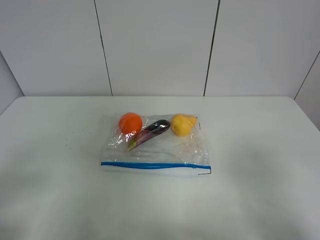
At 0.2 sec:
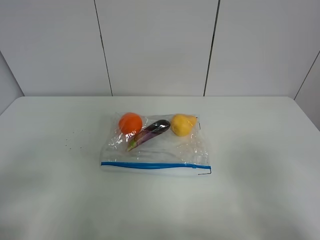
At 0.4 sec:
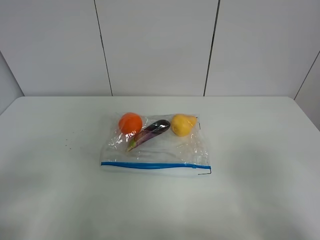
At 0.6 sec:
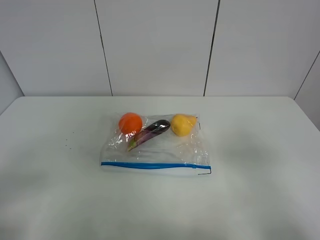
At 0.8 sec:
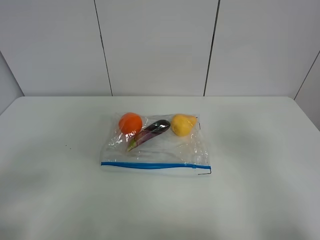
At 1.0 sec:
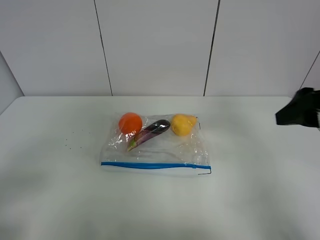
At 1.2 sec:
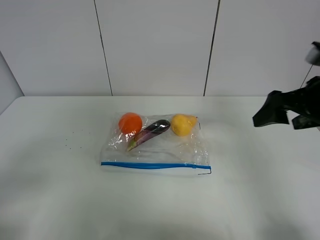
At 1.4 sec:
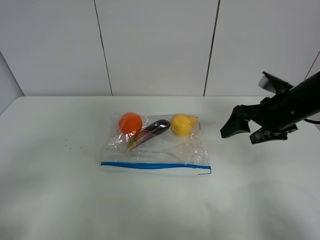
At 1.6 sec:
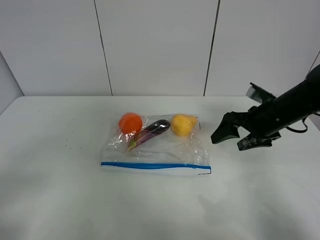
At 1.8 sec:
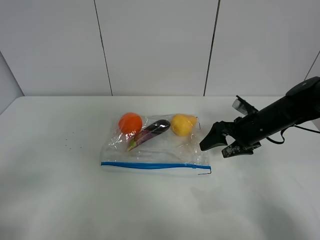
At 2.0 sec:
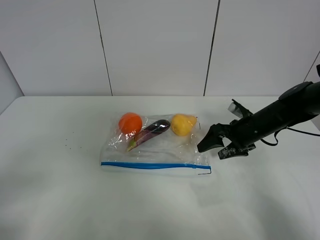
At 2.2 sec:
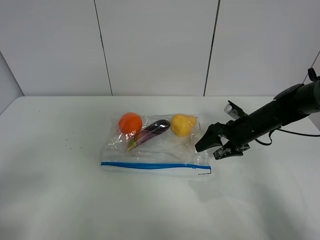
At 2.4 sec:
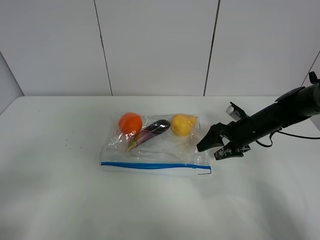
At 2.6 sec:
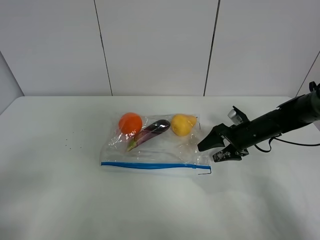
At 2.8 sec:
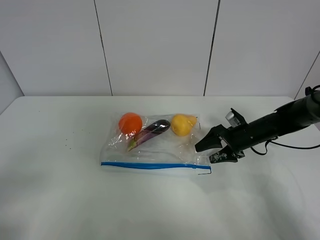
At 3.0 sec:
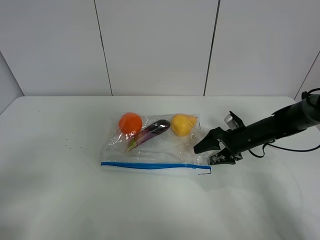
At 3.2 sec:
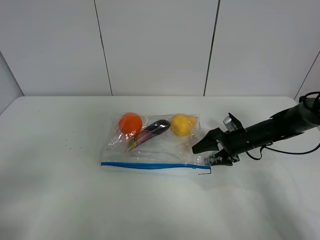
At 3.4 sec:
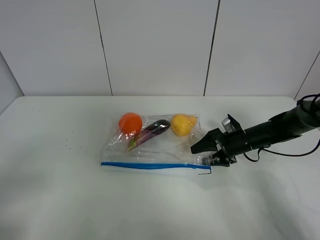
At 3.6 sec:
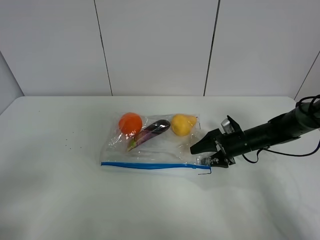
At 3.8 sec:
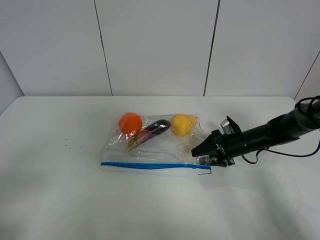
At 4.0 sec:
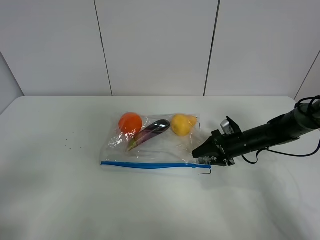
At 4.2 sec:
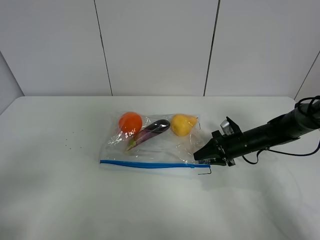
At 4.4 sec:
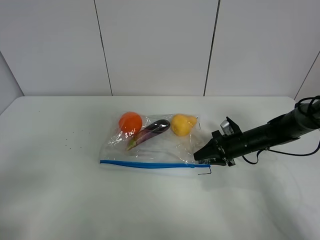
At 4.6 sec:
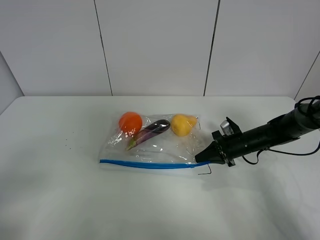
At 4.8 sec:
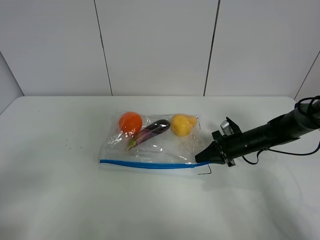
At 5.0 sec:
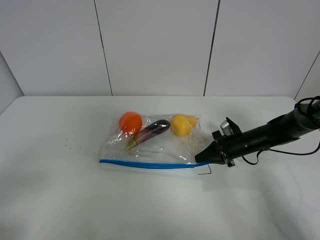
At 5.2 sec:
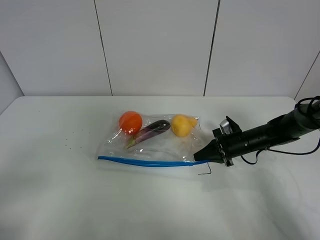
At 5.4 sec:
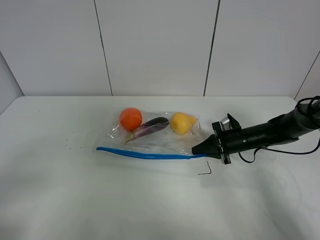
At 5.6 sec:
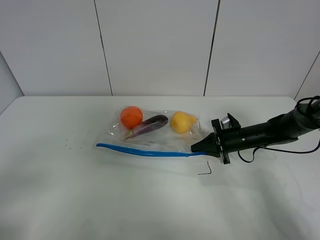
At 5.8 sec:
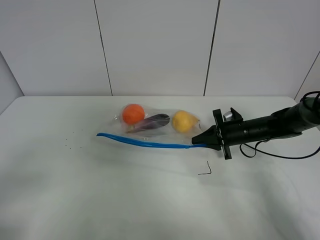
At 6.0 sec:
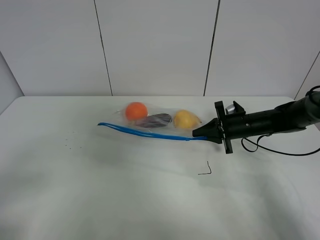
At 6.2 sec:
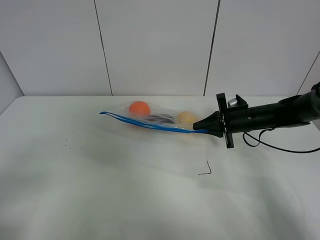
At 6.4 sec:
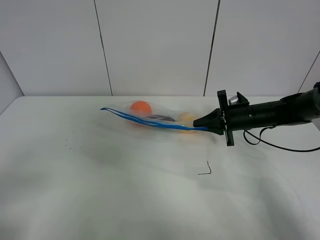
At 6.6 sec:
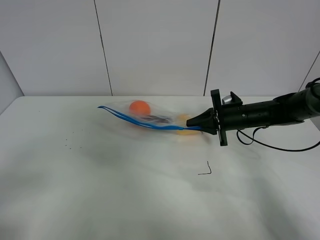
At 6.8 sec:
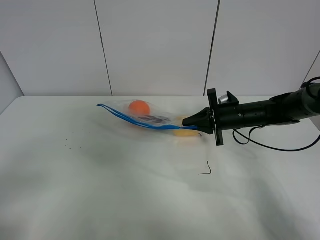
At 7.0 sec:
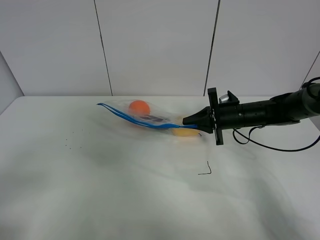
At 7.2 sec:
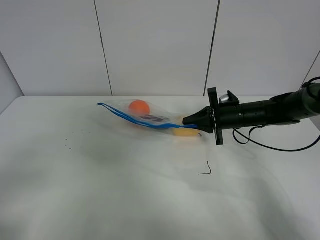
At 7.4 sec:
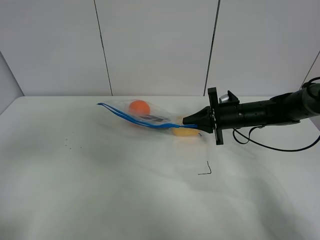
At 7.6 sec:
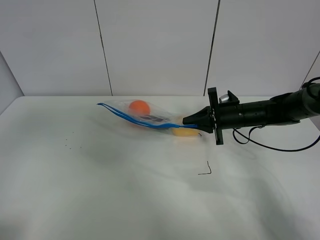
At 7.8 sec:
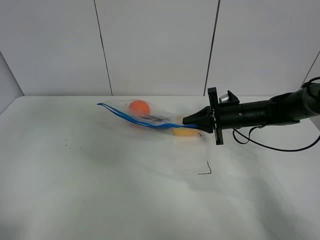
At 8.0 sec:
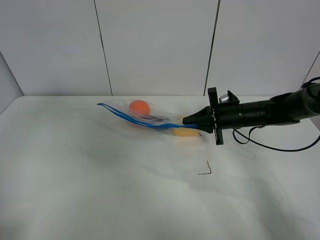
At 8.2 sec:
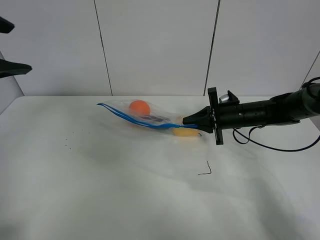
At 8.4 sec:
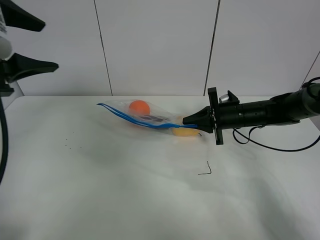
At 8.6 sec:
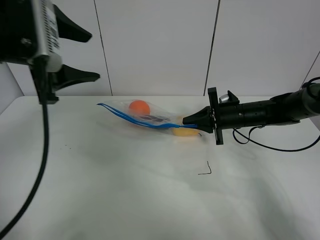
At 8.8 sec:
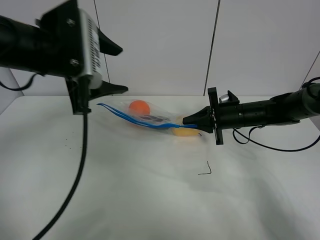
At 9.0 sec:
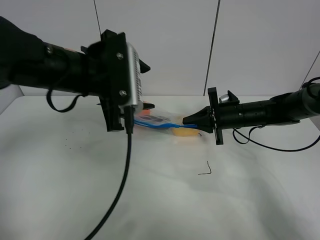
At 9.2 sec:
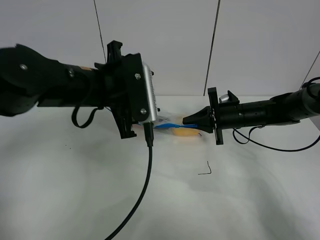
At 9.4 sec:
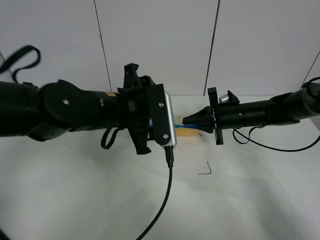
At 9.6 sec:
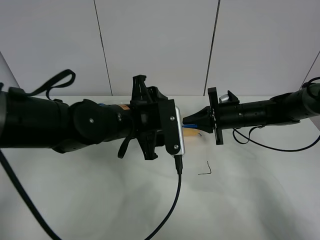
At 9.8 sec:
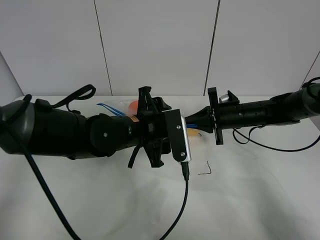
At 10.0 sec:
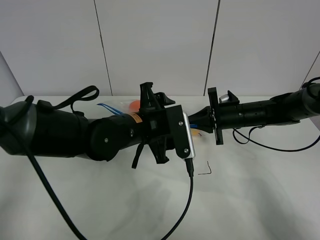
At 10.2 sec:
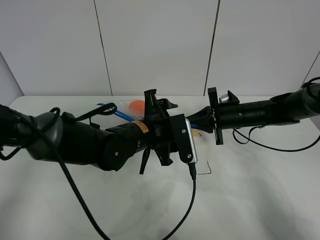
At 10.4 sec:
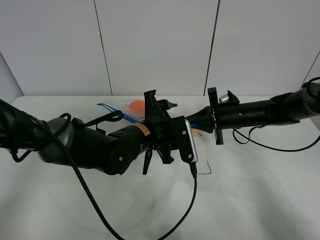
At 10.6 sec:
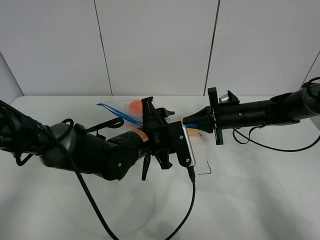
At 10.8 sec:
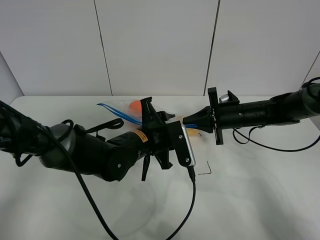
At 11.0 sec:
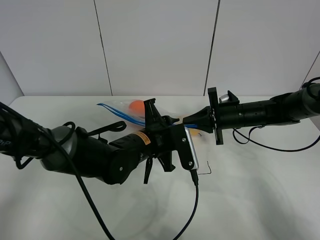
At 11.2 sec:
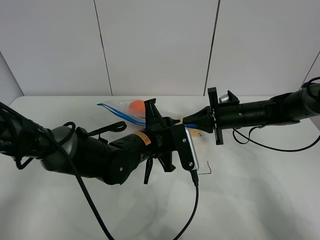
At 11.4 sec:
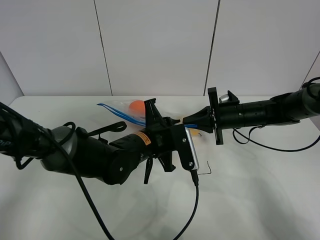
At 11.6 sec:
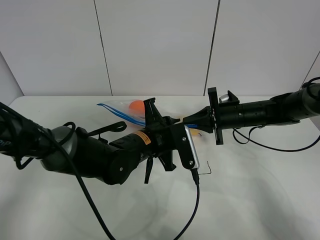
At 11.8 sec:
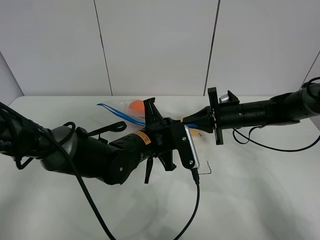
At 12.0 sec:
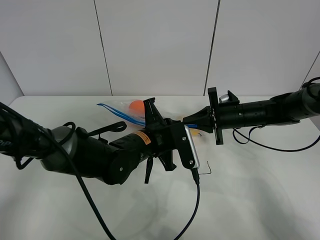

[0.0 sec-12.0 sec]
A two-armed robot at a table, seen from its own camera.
Step, 0.0 sec to 4.6 sec: Grasp the fruit bag with right gripper.
Step, 4.8 sec to 6.8 sec: Lift the fruit bag with your right gripper.
0.0 sec to 1.6 sec: The right gripper is displaced forward by roughly 30 cm.
1.6 sec to 3.0 sec: The right gripper moves downward, approximately 10 cm.
3.0 sec to 4.4 sec: The right gripper closes its fingers.
4.4 sec to 6.0 sec: The right gripper moves upward, roughly 5 cm, and closes.
6.0 sec to 7.6 sec: The left gripper travels upward and forward by roughly 15 cm.
7.6 sec to 9.0 sec: The left gripper moves to the right, forward and downward, about 30 cm.
9.0 sec to 10.4 sec: The left gripper shifts approximately 15 cm downward and to the right.
10.4 sec to 12.0 sec: The left gripper closes up.

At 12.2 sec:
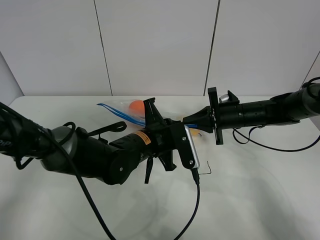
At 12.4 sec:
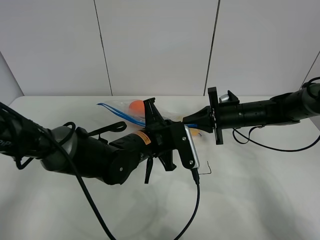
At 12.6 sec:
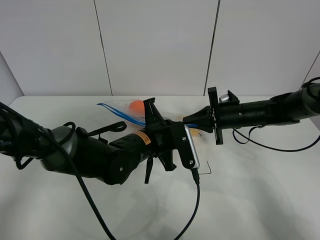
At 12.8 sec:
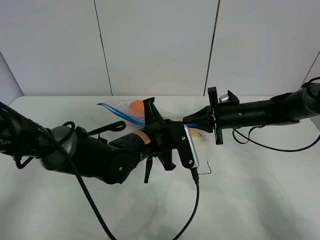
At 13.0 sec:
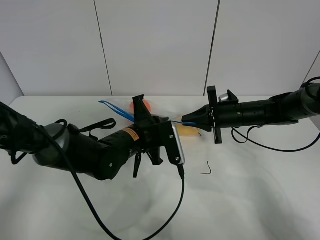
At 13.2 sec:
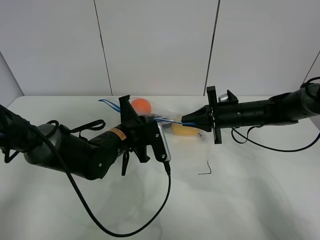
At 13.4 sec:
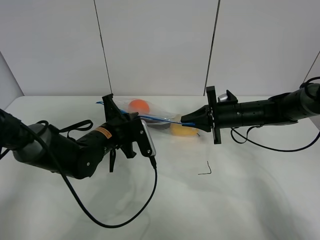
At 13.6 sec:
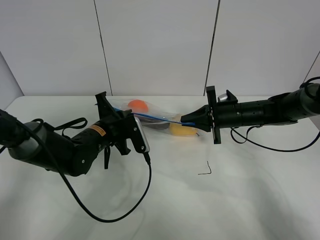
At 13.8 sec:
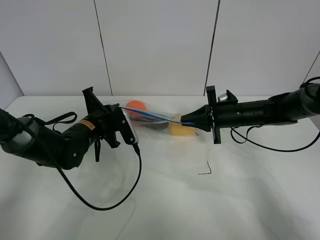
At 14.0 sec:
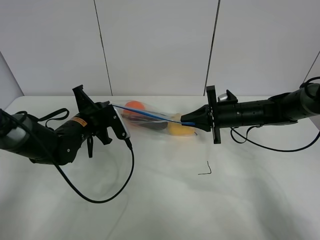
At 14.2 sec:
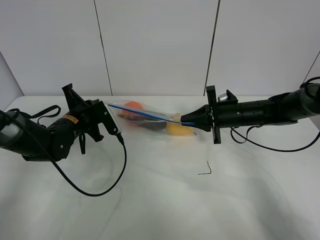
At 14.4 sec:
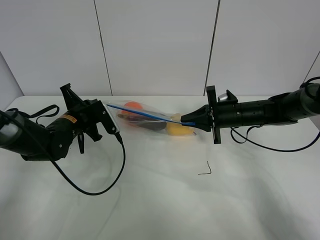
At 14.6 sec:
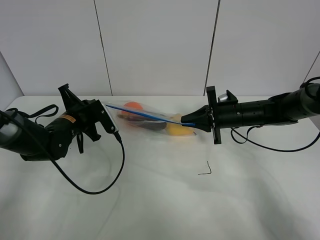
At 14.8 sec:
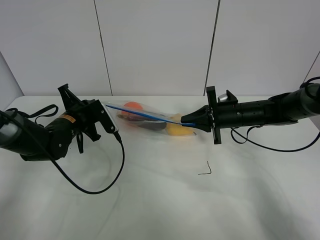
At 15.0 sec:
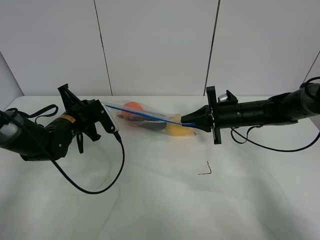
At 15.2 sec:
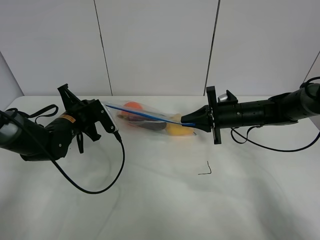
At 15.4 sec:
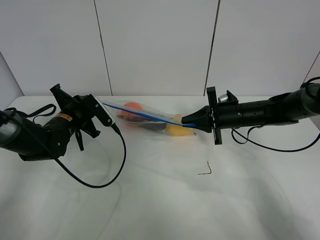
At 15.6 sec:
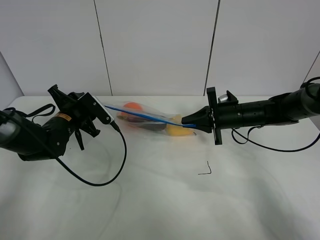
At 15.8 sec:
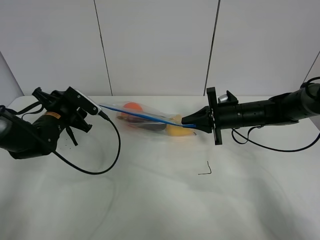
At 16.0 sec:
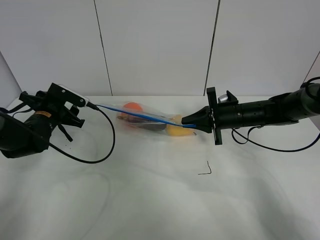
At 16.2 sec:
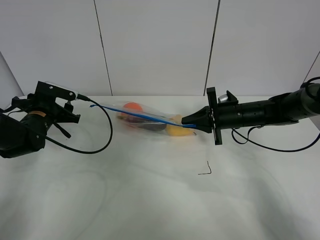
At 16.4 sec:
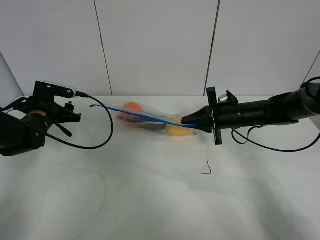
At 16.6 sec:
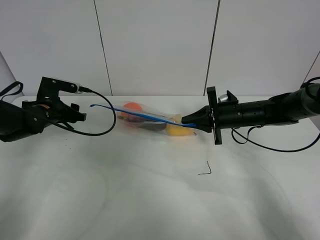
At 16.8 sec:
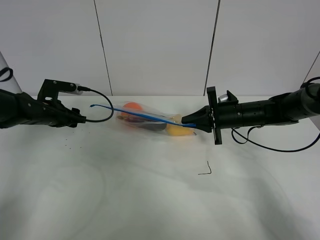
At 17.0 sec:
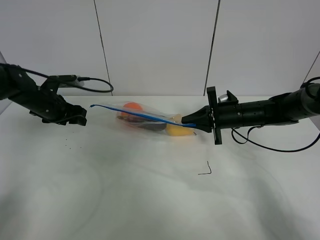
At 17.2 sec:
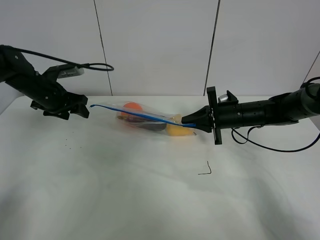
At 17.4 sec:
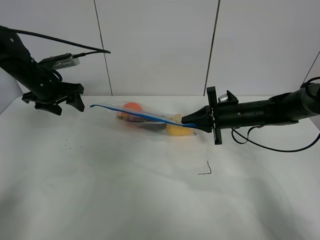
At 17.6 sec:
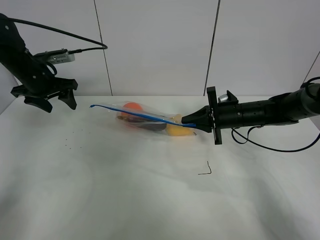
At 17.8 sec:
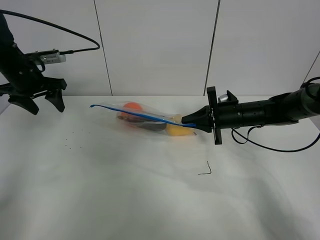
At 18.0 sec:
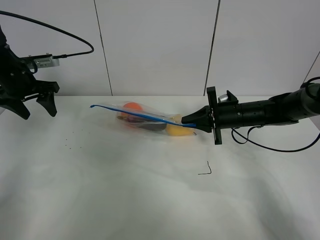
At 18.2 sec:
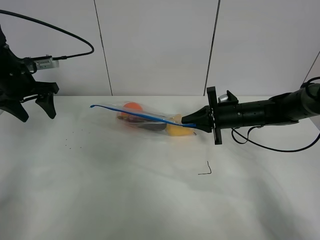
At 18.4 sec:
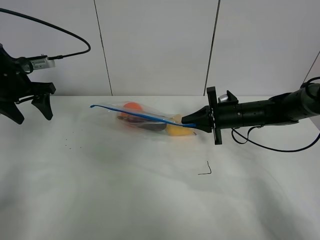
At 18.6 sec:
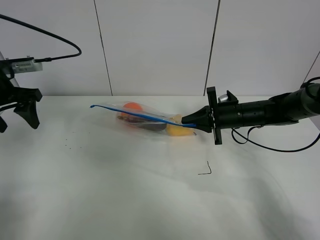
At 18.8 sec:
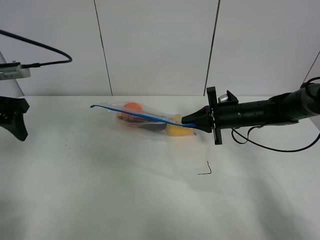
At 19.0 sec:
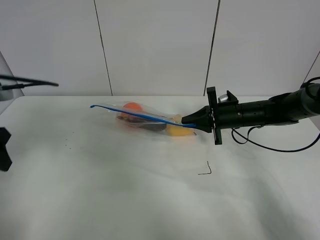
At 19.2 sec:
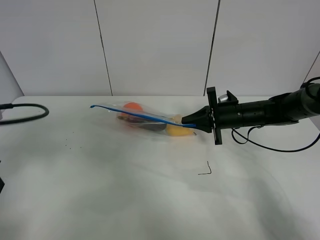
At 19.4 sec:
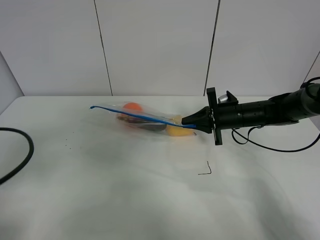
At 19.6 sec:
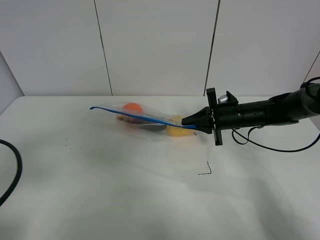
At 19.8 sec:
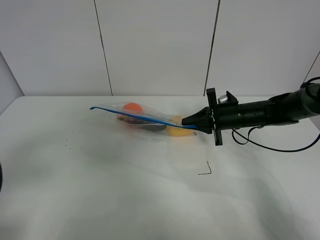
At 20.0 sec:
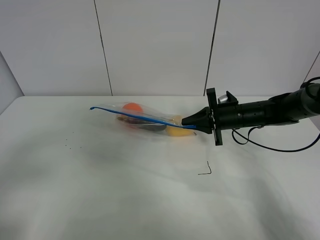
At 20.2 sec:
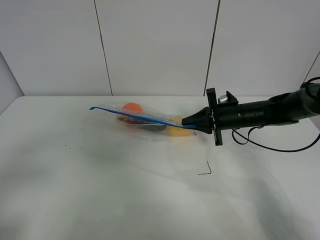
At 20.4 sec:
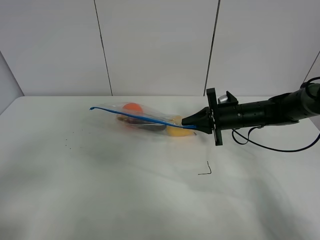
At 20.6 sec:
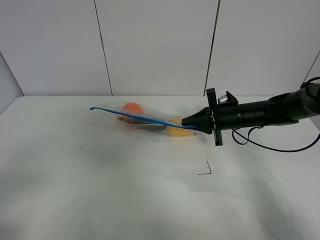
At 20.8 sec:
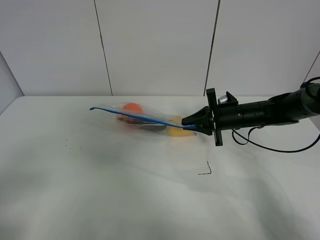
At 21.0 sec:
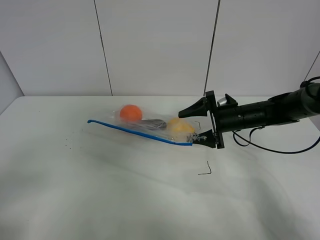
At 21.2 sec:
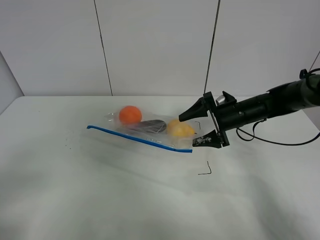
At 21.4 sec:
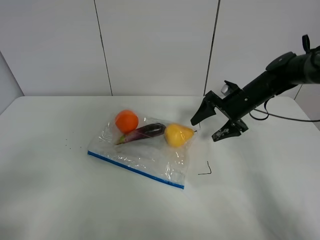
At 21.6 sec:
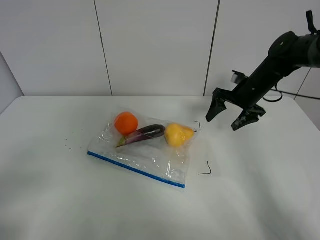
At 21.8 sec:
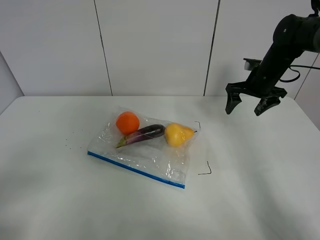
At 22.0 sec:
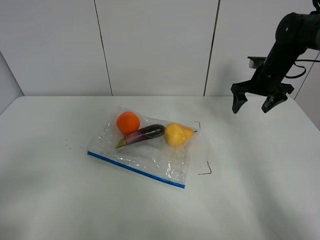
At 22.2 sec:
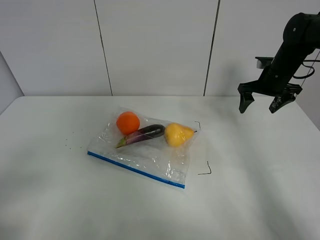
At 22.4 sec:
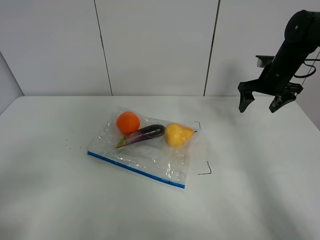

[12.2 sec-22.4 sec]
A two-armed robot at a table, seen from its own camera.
Step, 12.2 sec to 15.8 sec: Pull the fruit bag with left gripper.
12.2 sec to 13.6 sec: The left gripper shifts some 10 cm to the left.
13.6 sec to 15.2 sec: The left gripper heads to the left, covering some 5 cm.
15.2 sec to 16.6 sec: The left gripper travels to the left by roughly 5 cm, and opens.
16.6 sec to 18.0 sec: The left gripper is displaced upward by some 10 cm.
18.0 sec to 19.4 sec: The left gripper is displaced backward by some 30 cm.
19.4 sec to 21.0 sec: The right gripper opens its fingers; the left gripper goes roughly 10 cm backward.
21.0 sec to 22.4 sec: The right gripper moves to the right, upward and forward, some 15 cm.
